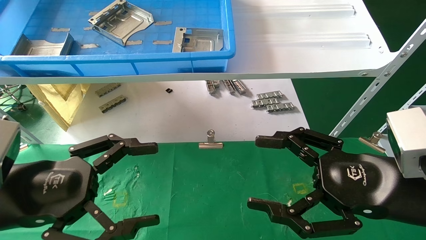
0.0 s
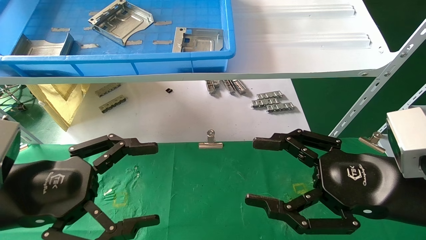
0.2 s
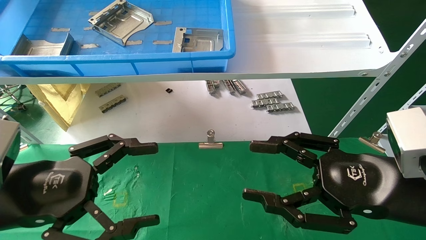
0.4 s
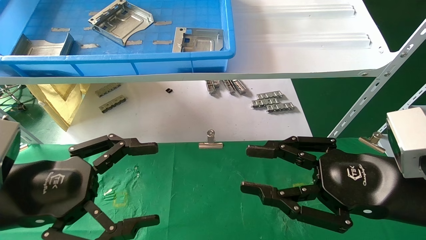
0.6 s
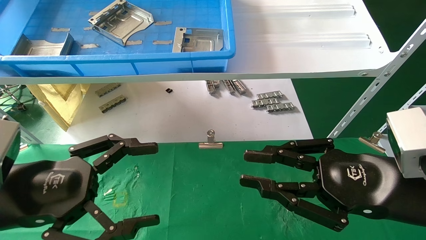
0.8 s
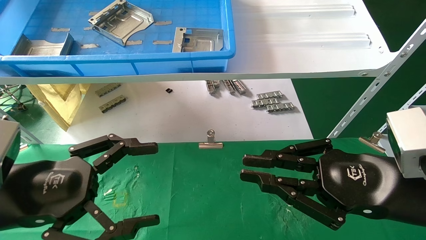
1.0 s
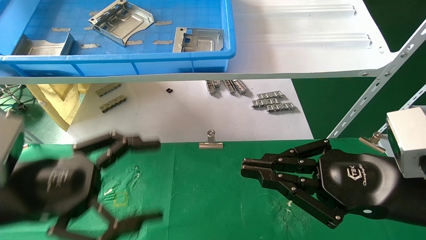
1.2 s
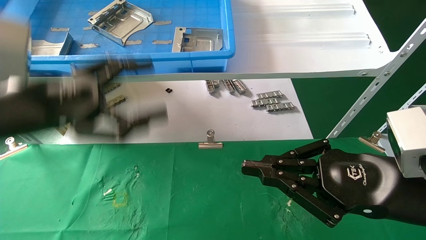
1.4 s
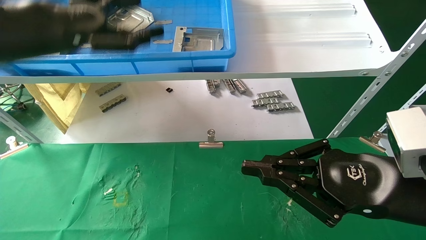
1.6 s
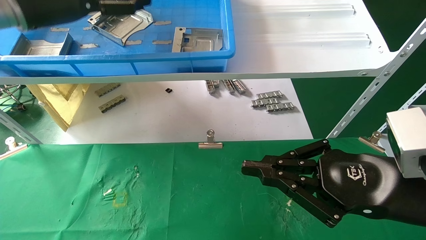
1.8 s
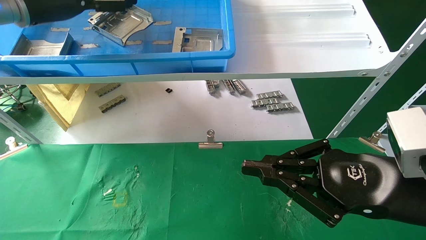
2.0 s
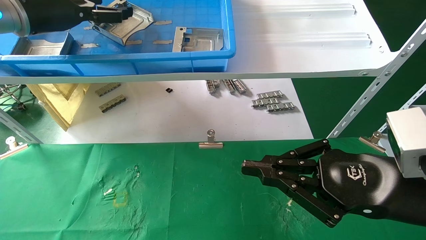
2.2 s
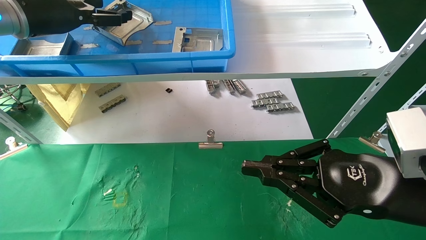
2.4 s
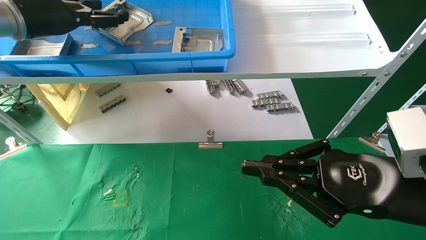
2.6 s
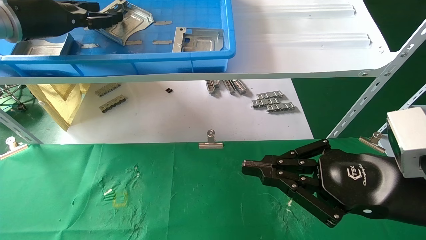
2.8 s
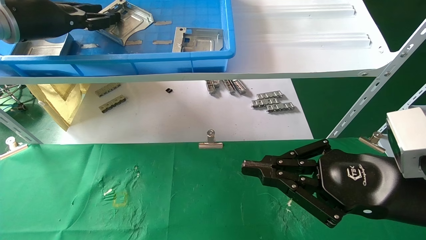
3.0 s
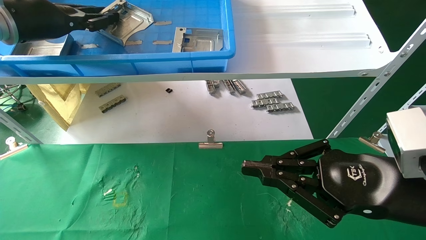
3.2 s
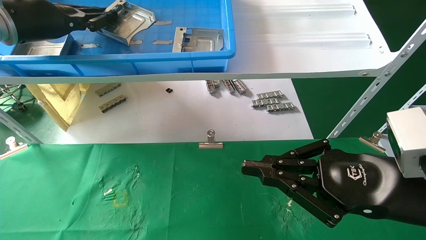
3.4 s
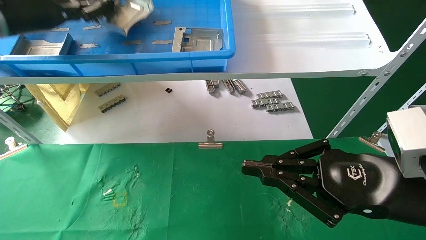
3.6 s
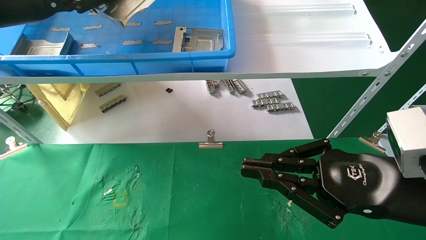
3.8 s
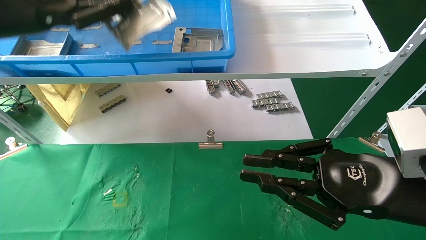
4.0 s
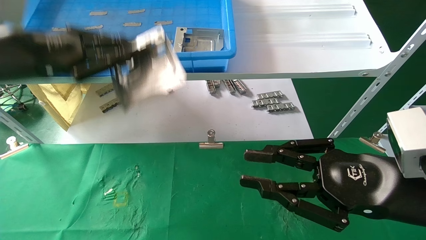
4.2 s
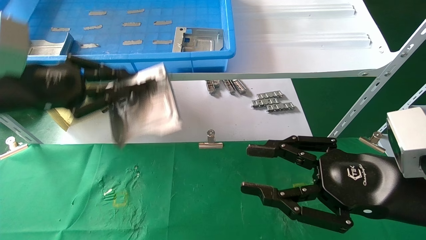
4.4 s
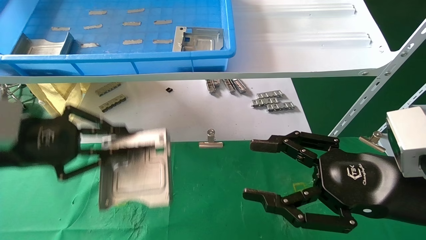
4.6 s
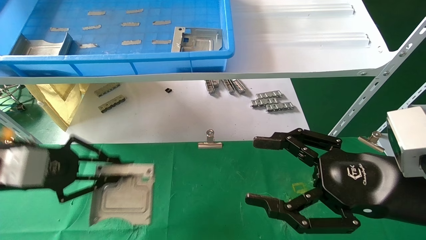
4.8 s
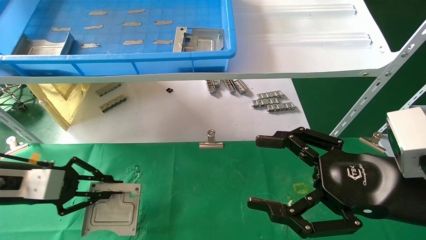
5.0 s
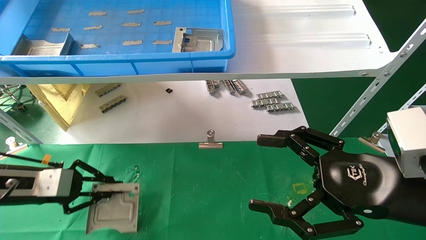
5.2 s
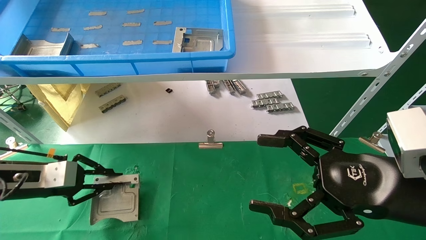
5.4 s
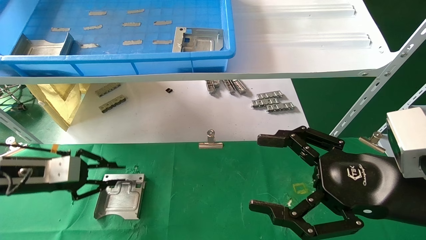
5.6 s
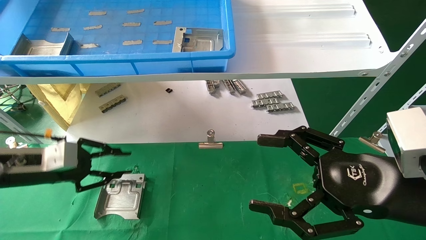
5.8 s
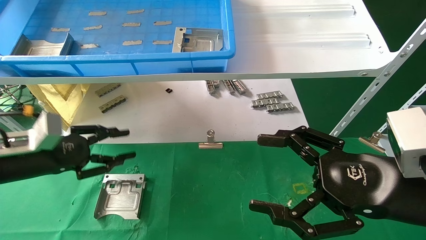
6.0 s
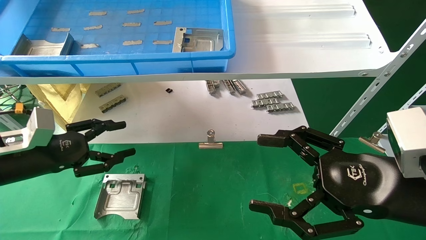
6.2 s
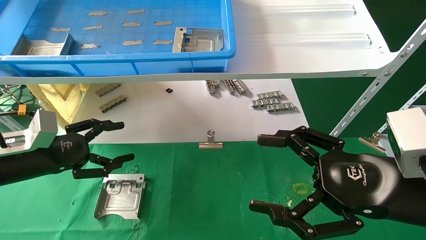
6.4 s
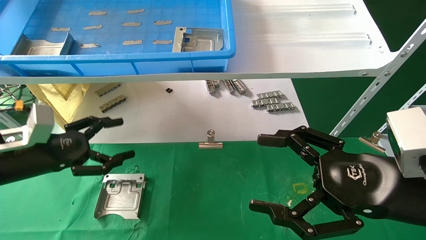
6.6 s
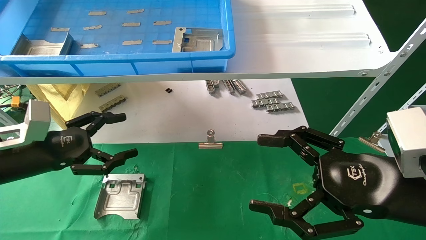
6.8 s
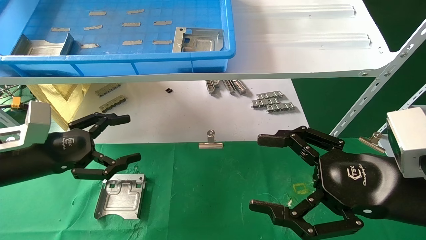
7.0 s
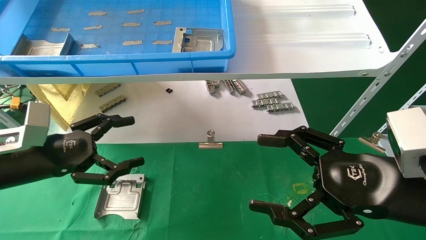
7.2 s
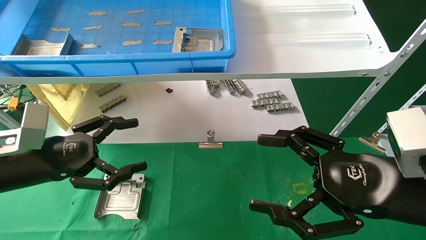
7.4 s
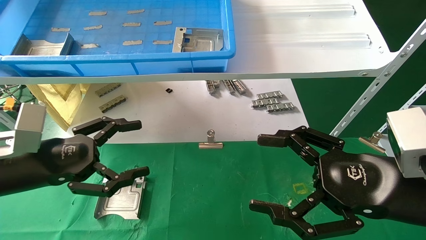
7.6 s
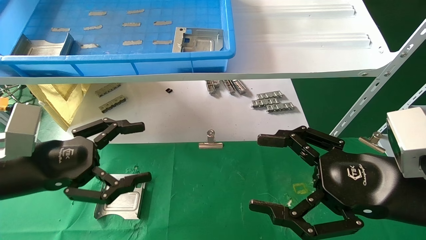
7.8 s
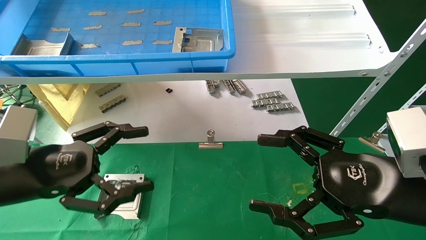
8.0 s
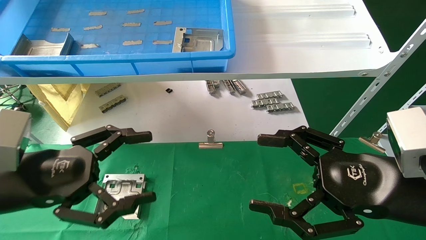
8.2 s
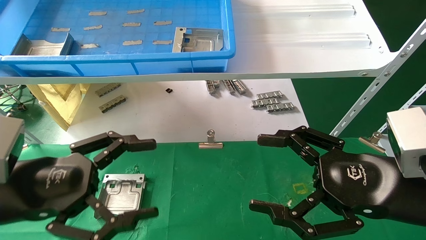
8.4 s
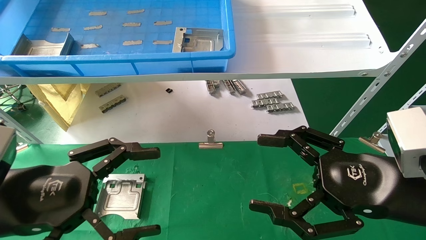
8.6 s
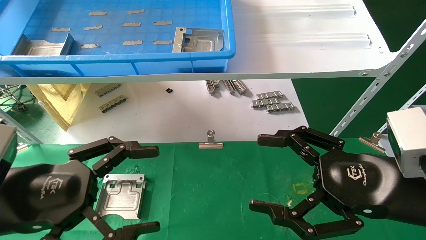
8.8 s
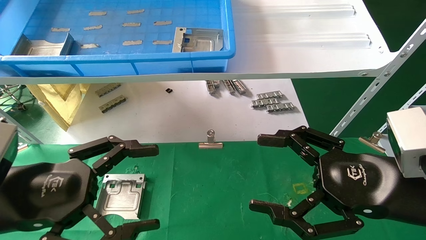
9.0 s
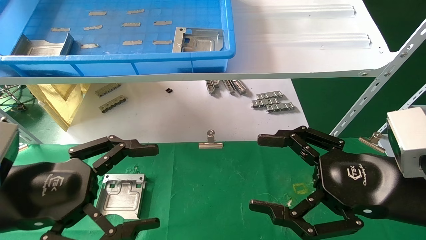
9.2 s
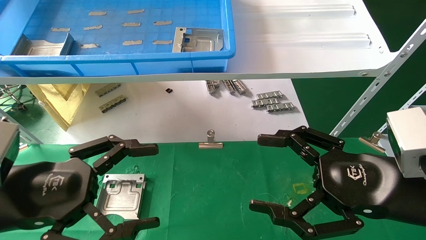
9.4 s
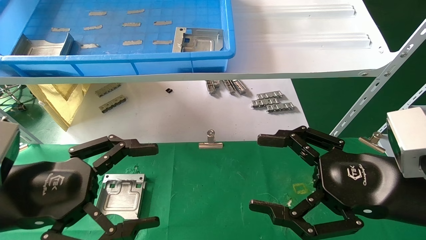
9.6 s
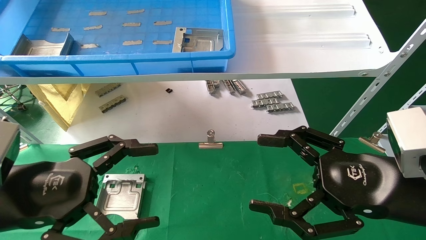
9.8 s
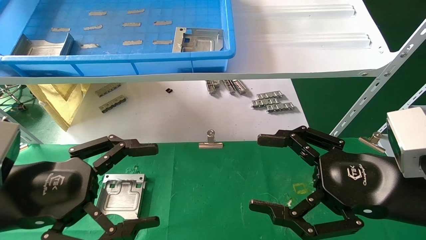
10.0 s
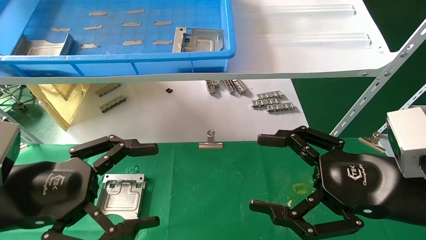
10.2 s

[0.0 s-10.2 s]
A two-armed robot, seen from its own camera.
Task of the whole recording: use the mechanical arm to pick up the parts and place them on the table.
Step, 1.8 to 4.6 s: Pick up the hard drive bracket from the feeding area.
Step, 4.8 to 7.0 s: Place the hard drive bracket into the box.
0.0 to 1.4 s: The left gripper is displaced upward and forward by approximately 15 cm; the right gripper closes up.
1.4 to 3.0 s: The left gripper is displaced forward, upward and to the left by roughly 20 cm, and closes its fingers.
3.0 to 4.4 s: The left gripper is displaced backward and downward by about 15 cm, and closes its fingers; the right gripper opens up.
4.4 to 5.8 s: The right gripper opens its fingers; the left gripper goes about 15 cm downward.
5.8 to 7.2 s: The left gripper moves some 5 cm, and opens.
7.2 to 8.8 s: The left gripper goes about 10 cm backward and to the right.
8.8 to 10.2 s: Neither gripper changes place.
